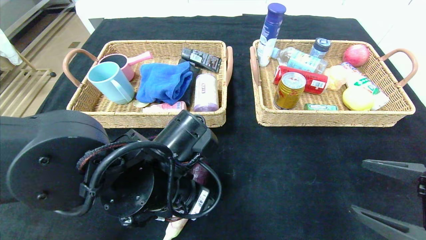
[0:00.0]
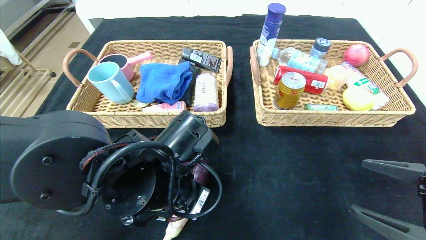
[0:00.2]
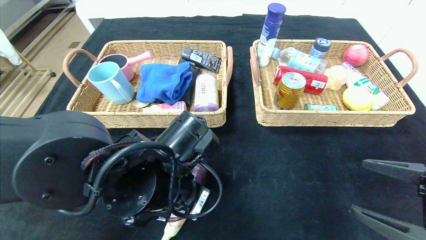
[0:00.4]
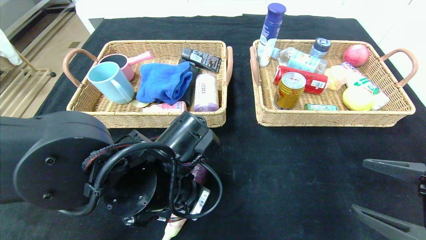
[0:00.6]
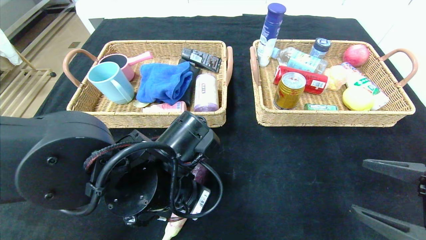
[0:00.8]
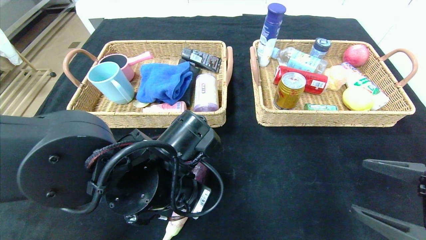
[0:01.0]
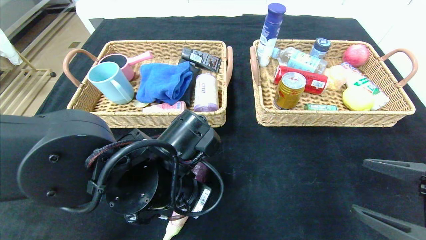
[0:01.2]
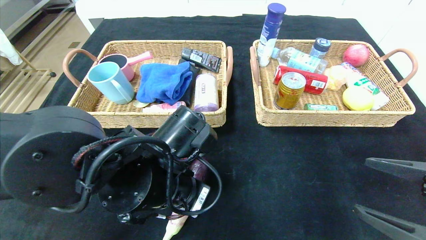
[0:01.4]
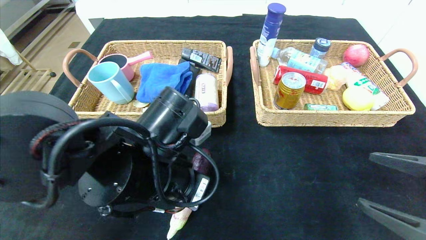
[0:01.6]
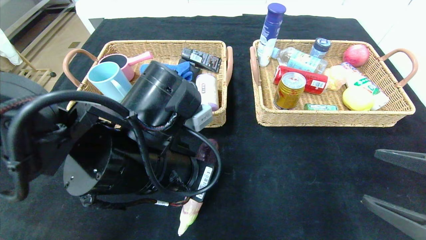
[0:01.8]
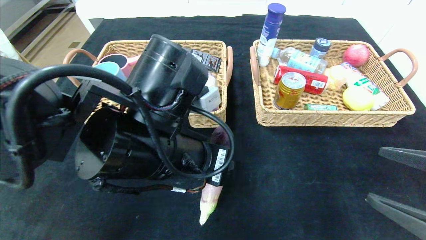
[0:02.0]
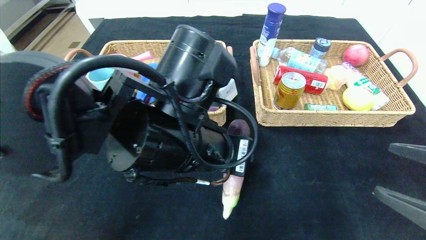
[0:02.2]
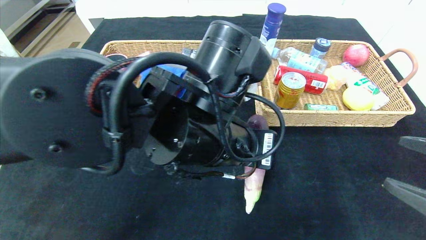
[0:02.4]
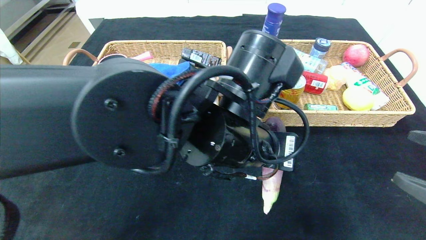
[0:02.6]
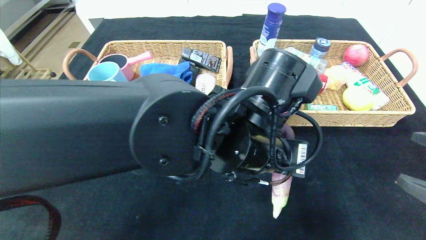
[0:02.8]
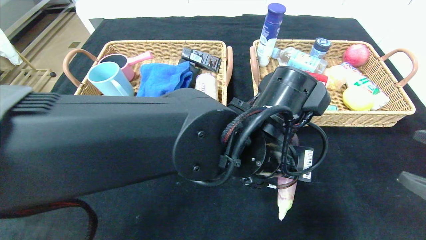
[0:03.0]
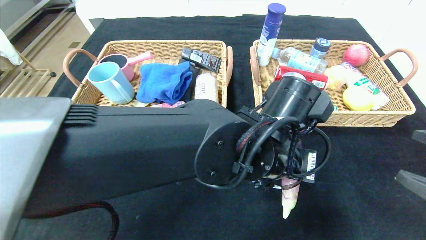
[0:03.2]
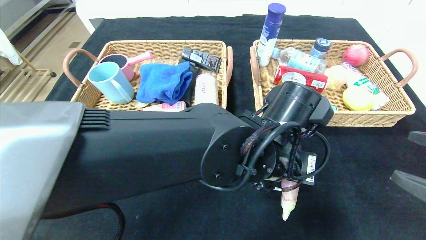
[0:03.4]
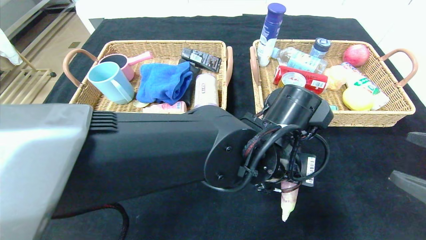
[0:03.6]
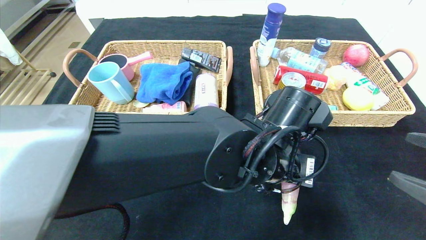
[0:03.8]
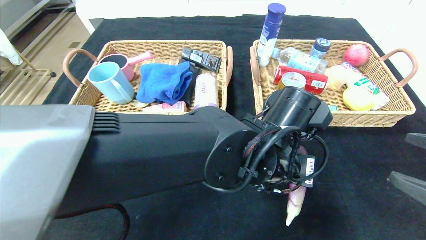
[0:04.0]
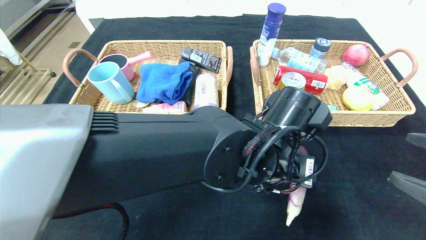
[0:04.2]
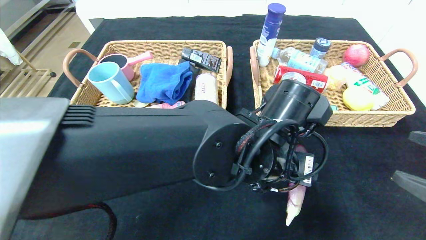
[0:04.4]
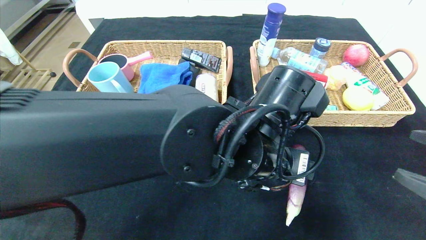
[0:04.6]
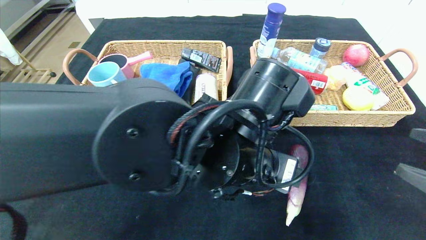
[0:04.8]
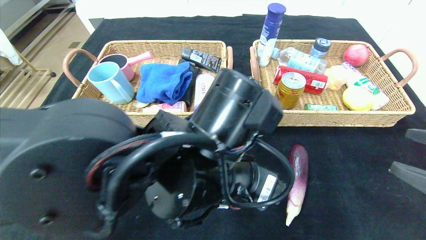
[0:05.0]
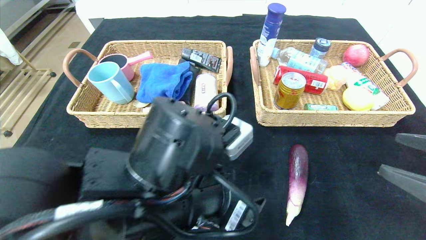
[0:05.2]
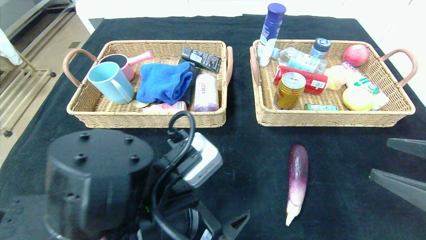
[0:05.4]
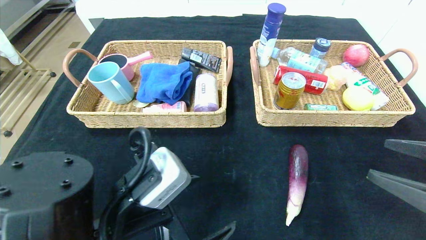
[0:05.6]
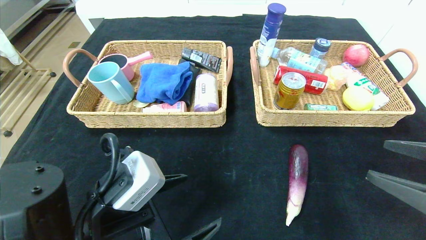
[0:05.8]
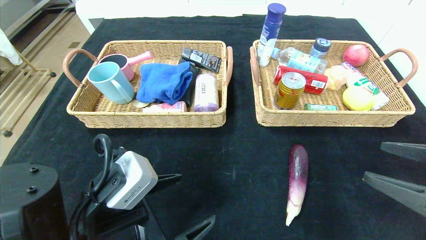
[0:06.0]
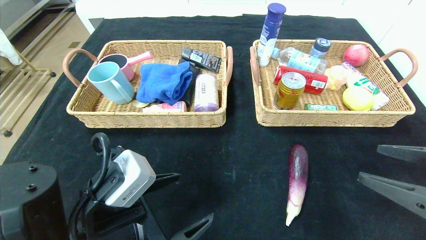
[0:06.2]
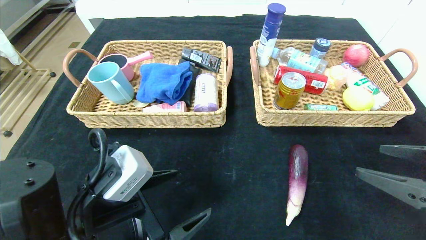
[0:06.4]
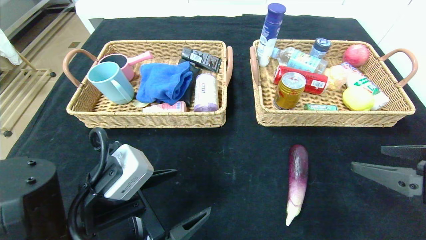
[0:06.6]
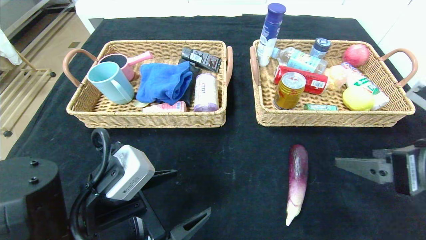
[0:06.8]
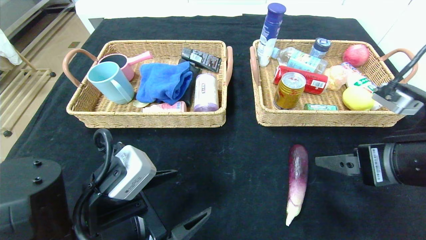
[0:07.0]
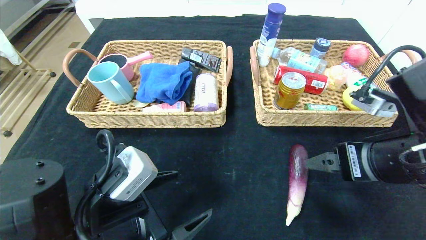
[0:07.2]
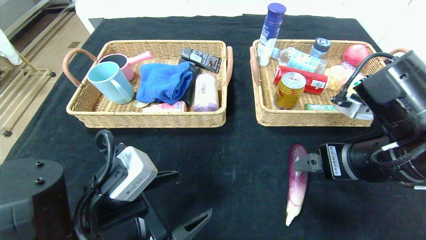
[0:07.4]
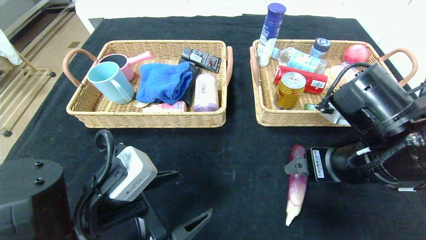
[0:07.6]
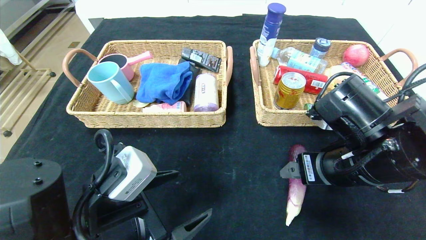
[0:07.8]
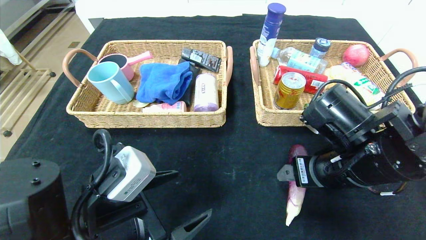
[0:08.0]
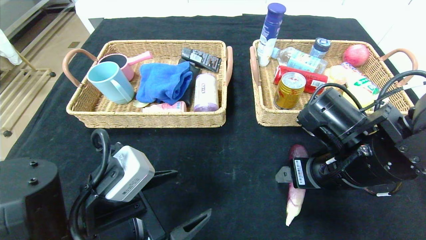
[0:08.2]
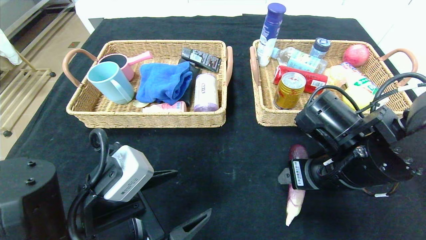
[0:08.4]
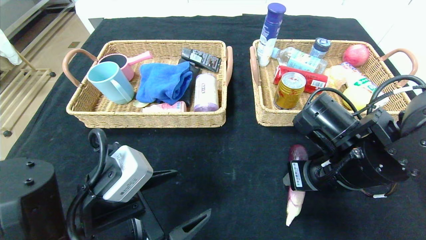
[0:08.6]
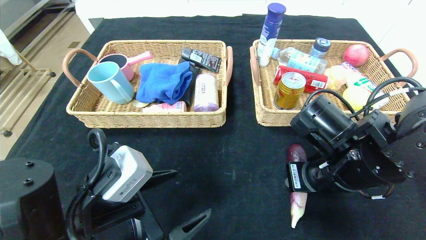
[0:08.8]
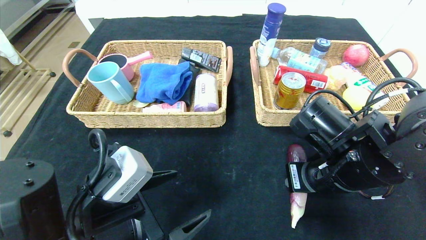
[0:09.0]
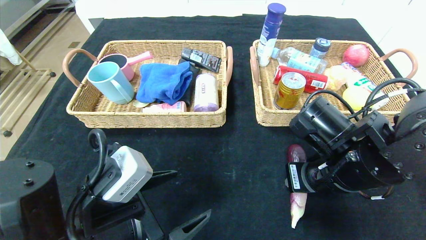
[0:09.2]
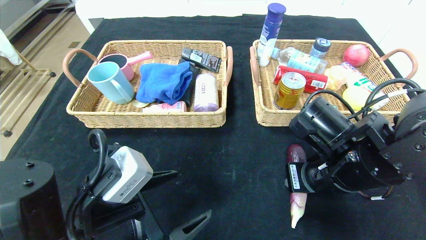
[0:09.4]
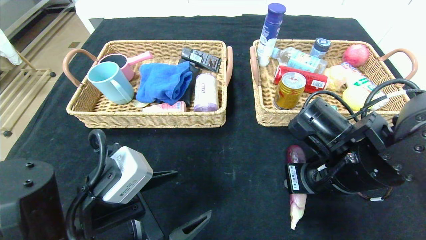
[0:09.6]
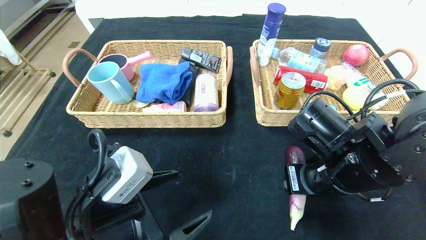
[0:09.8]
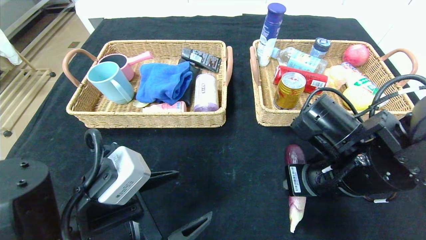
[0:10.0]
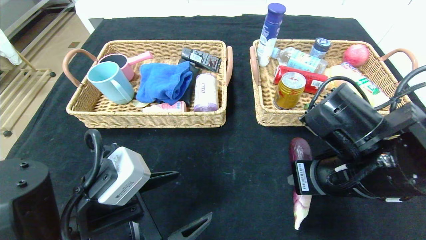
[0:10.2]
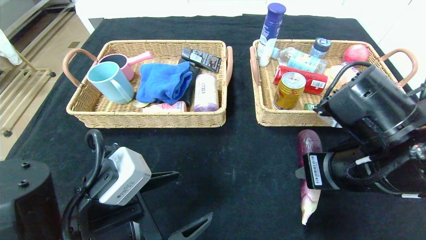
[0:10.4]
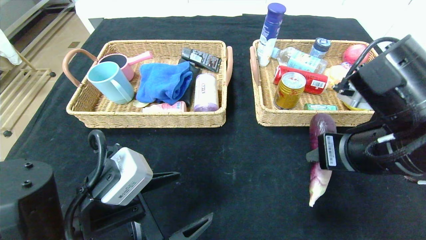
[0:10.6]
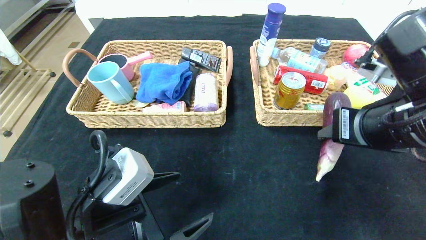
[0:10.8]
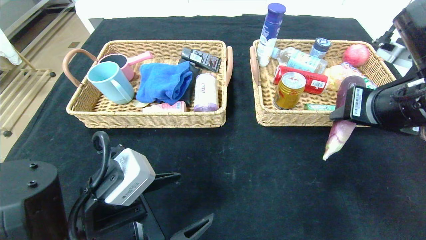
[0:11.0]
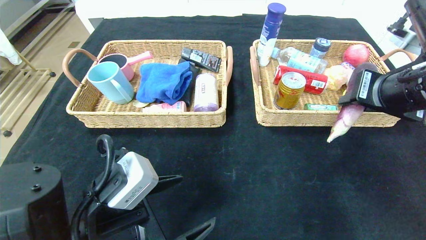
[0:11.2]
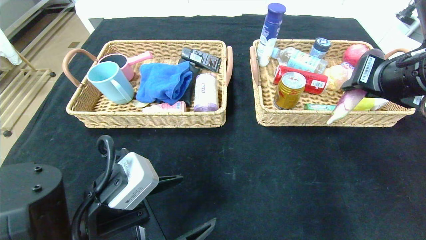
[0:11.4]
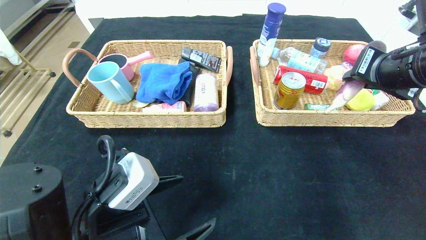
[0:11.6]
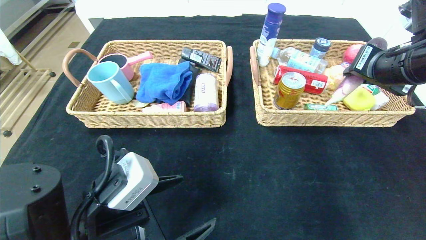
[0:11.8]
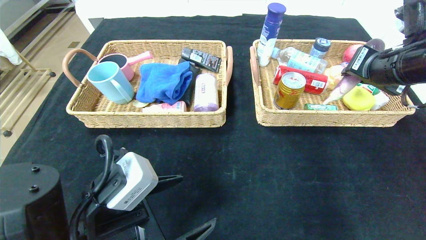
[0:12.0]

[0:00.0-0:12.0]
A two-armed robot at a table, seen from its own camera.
Step, 0:00.0 to 0:05.0: Place the eggplant in the center of the table.
0:00.0 to 0:01.6: The left gripper closes up.
0:01.6 to 0:03.0: The left gripper travels to the right by some 15 cm.
0:03.0 to 0:04.4: The left gripper opens up.
0:04.4 to 0:06.0: The left gripper travels to the left and backward by roughly 25 cm.
0:06.0 to 0:07.6: The right gripper goes roughly 15 cm to the left and forward.
0:07.6 to 0:09.0: The right gripper closes up.
0:09.0 to 0:10.4: The right gripper ends up approximately 5 cm from where it was.
0:10.4 to 0:12.0: The right gripper shifts roughly 15 cm forward, to the right and upward.

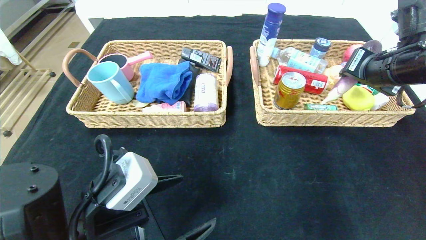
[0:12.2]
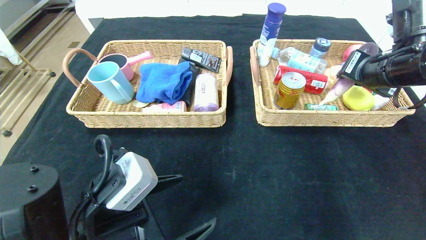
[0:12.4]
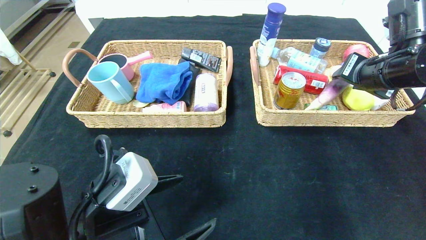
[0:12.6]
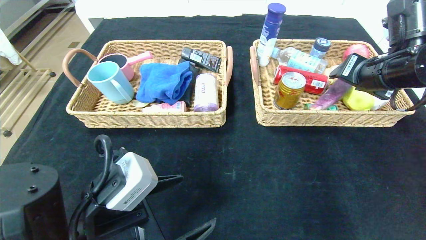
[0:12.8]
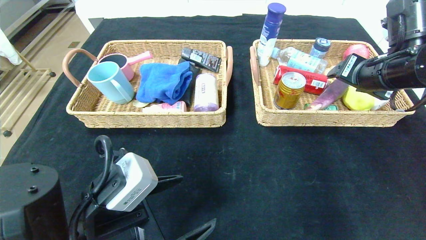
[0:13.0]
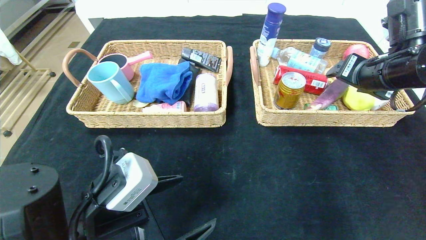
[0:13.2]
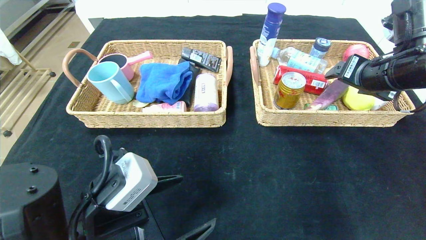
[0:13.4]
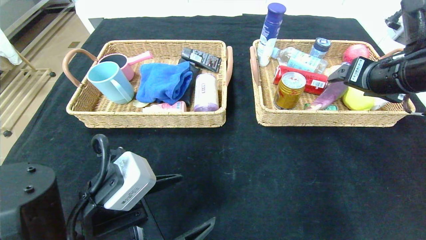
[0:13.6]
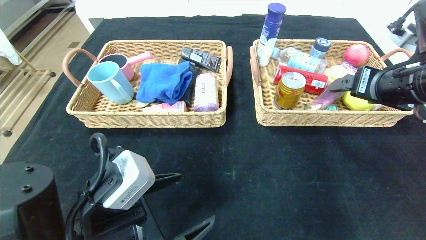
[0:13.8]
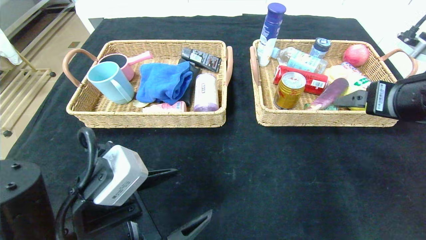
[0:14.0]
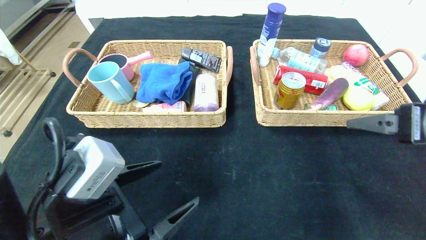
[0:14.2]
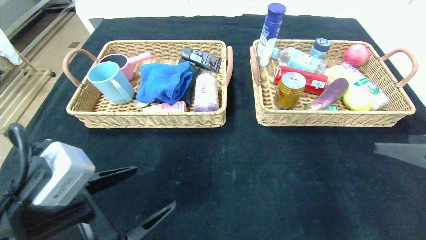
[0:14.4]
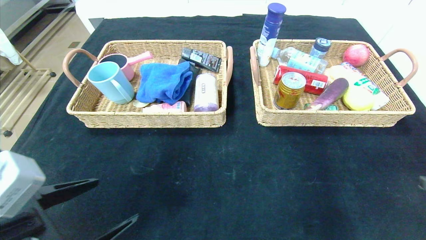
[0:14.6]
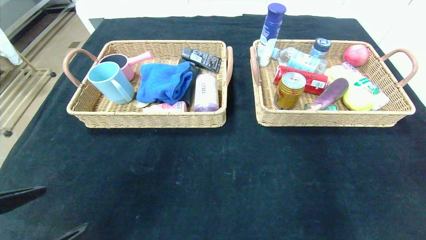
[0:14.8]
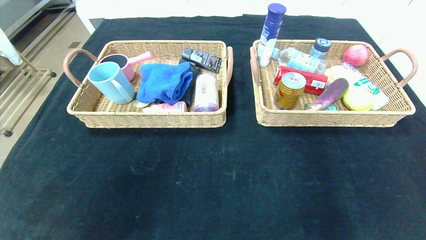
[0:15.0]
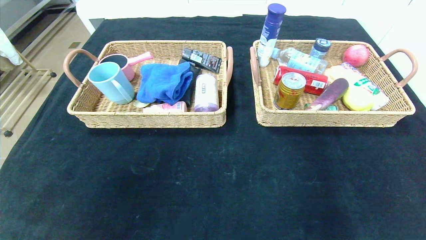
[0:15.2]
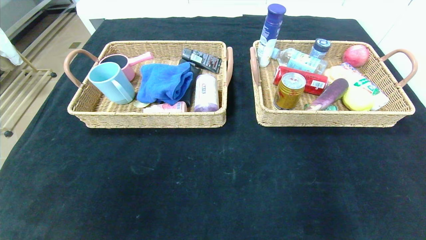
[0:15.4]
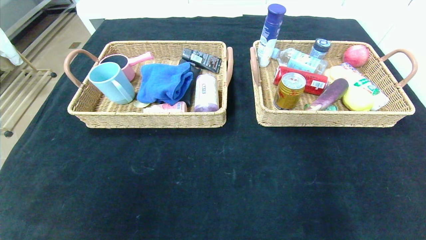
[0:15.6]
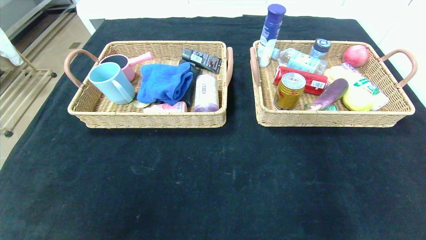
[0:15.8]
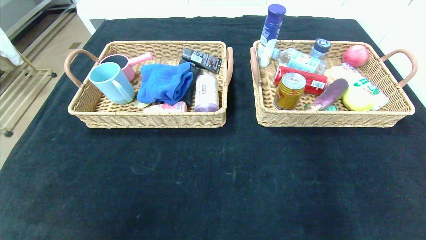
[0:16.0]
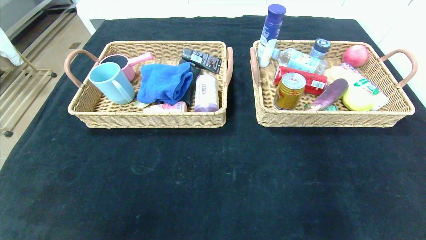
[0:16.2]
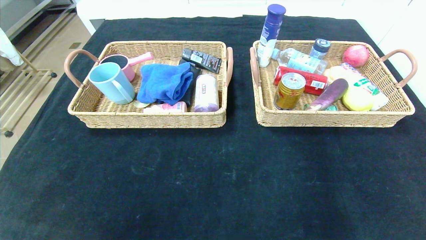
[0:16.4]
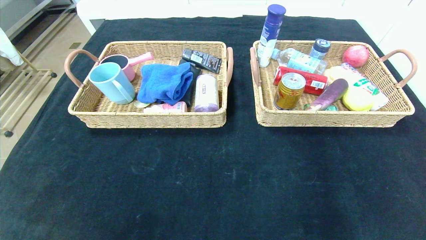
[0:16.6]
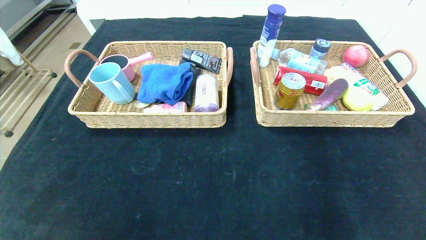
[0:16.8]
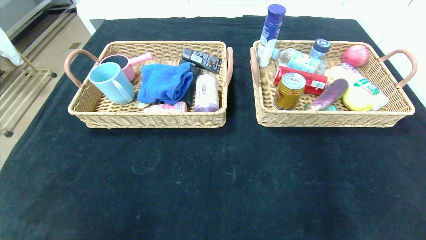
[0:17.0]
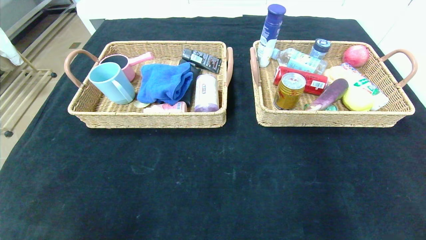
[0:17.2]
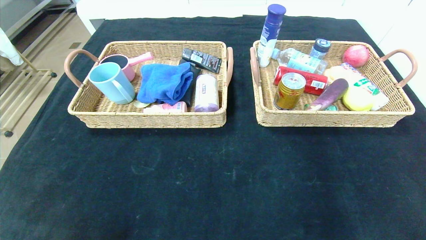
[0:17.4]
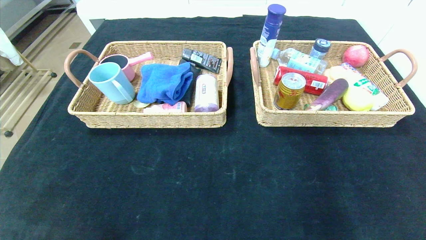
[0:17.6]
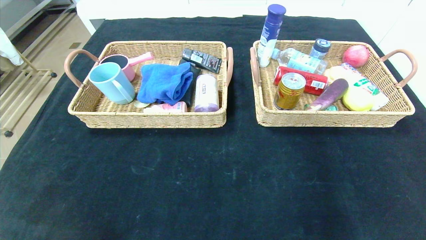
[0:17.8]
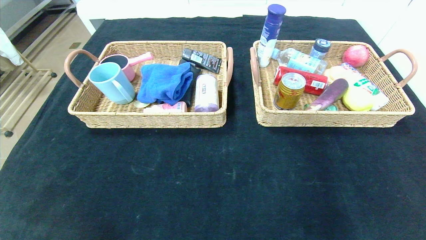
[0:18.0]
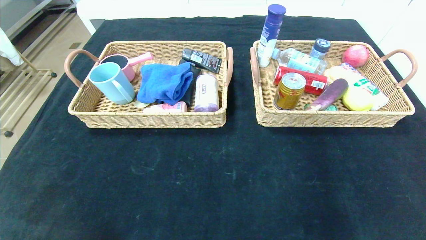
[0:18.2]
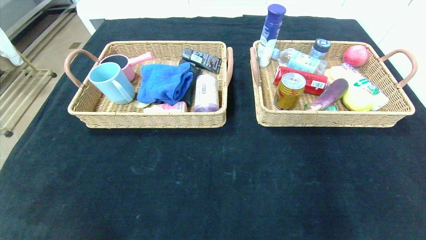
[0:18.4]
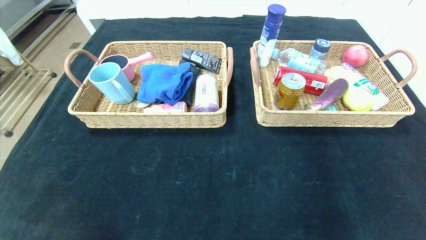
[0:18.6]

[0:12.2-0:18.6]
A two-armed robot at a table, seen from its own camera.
Step, 0:12.2 to 0:14.2: Pick up the eggplant and put it in the right basket.
0:12.2 to 0:13.8: The right gripper opens its fingers.
0:13.8 to 0:15.4: The right gripper travels backward by some 40 cm, while the left gripper heads backward, to the left and upward, covering roughly 25 cm.
